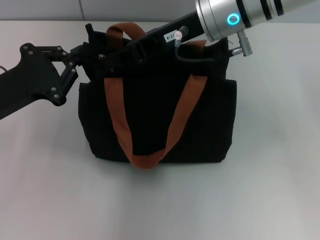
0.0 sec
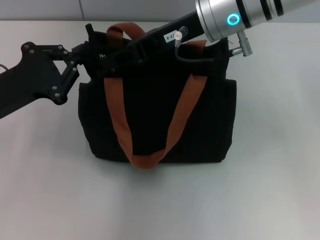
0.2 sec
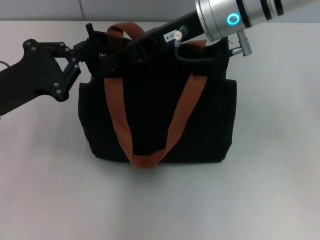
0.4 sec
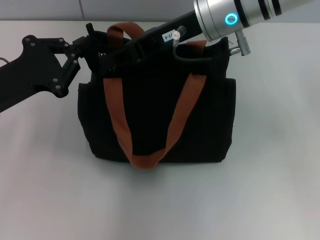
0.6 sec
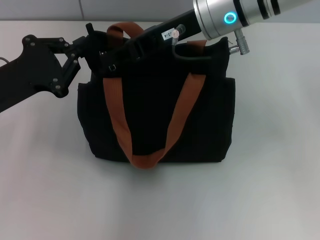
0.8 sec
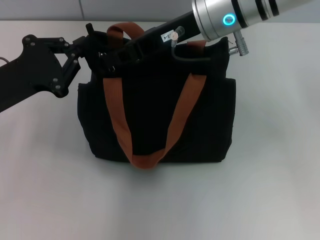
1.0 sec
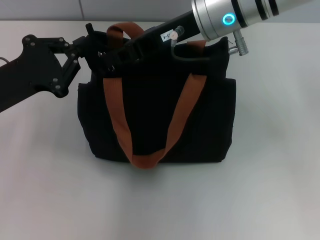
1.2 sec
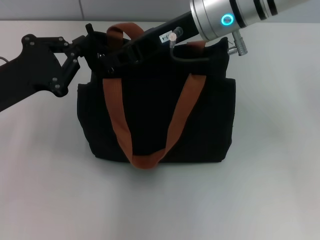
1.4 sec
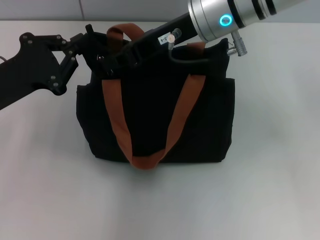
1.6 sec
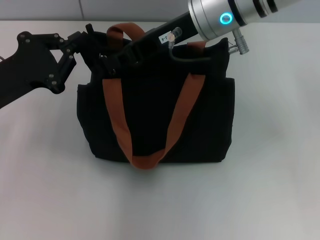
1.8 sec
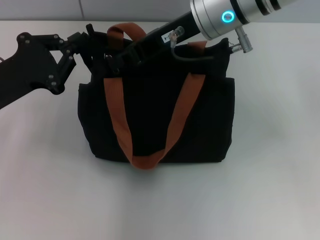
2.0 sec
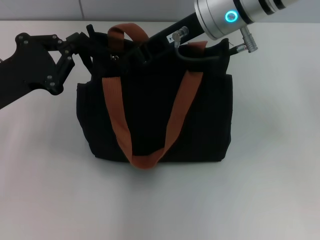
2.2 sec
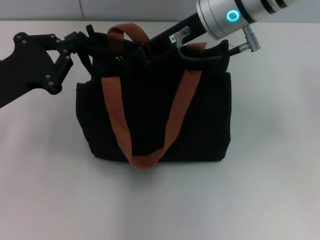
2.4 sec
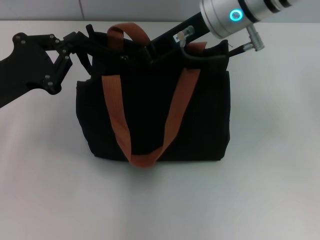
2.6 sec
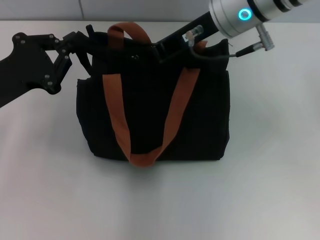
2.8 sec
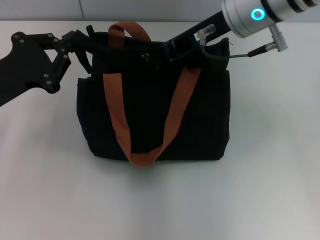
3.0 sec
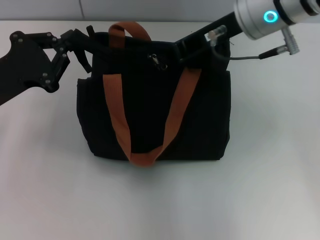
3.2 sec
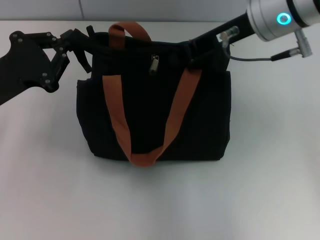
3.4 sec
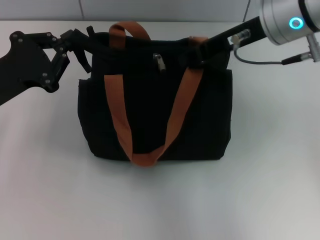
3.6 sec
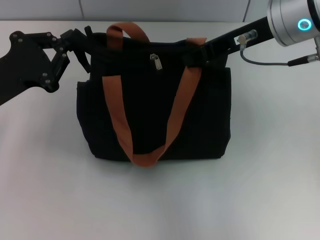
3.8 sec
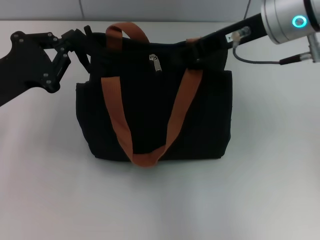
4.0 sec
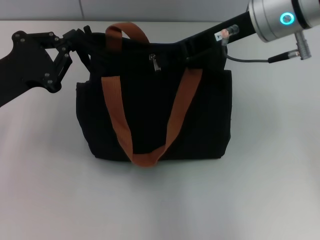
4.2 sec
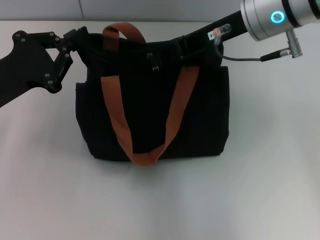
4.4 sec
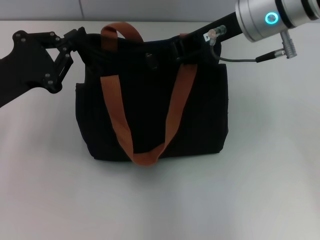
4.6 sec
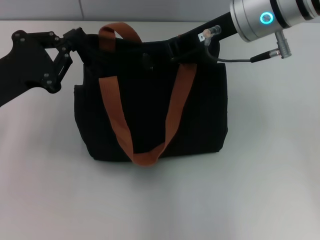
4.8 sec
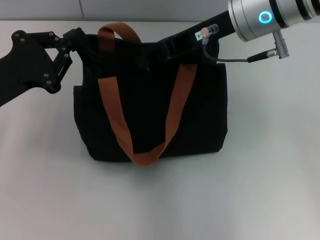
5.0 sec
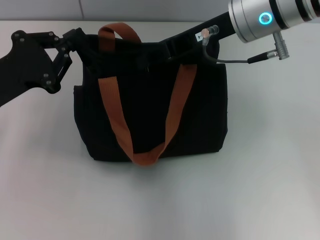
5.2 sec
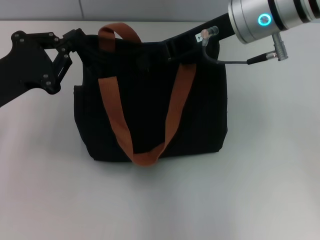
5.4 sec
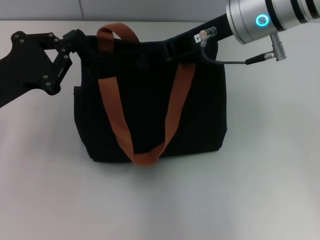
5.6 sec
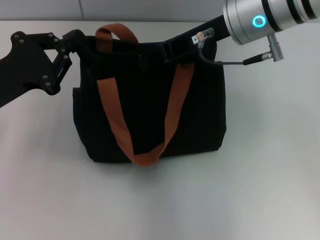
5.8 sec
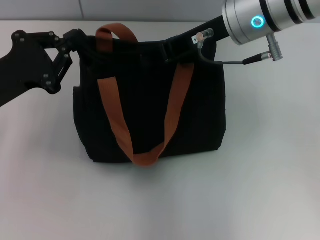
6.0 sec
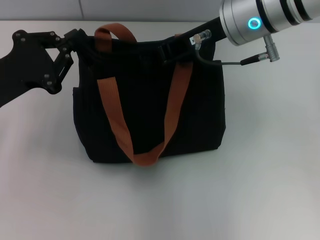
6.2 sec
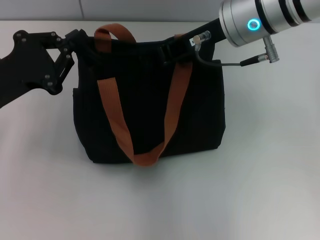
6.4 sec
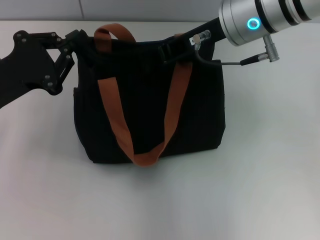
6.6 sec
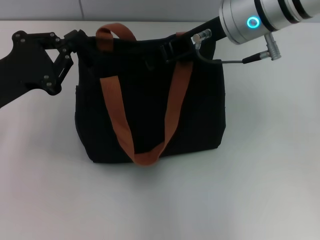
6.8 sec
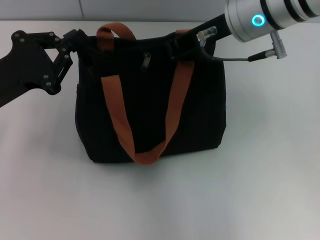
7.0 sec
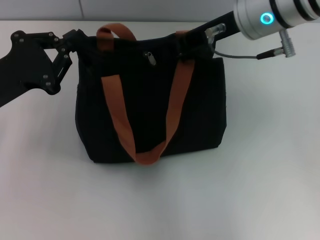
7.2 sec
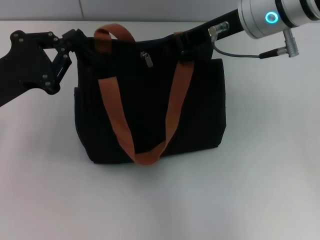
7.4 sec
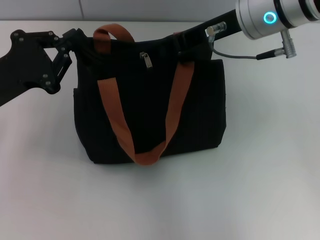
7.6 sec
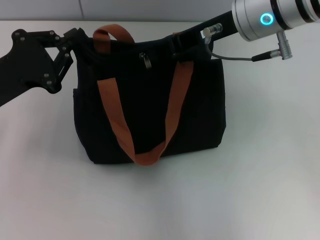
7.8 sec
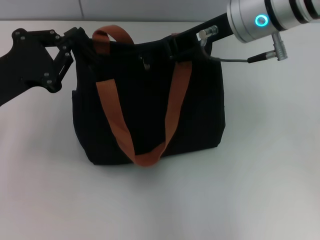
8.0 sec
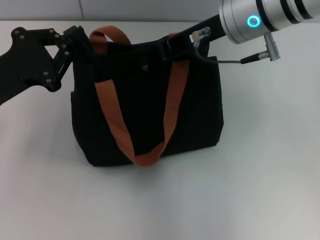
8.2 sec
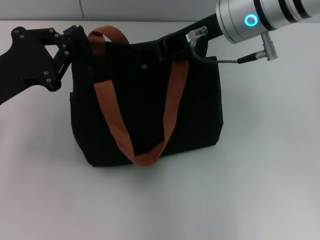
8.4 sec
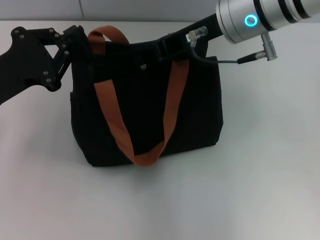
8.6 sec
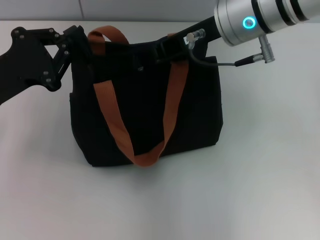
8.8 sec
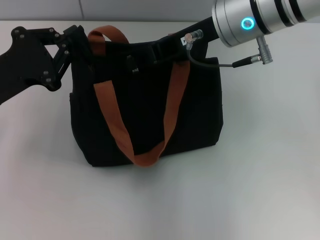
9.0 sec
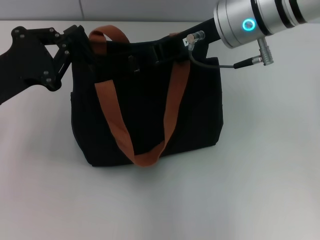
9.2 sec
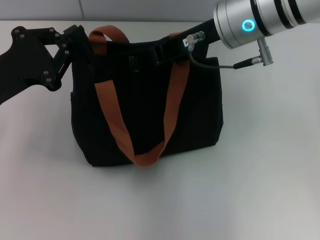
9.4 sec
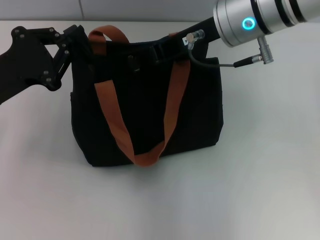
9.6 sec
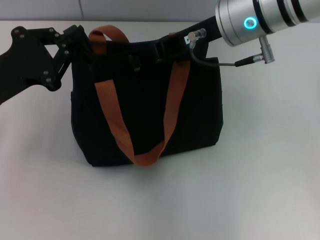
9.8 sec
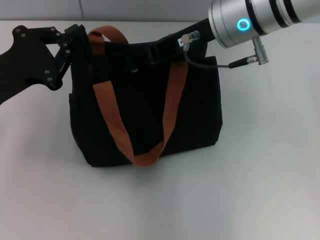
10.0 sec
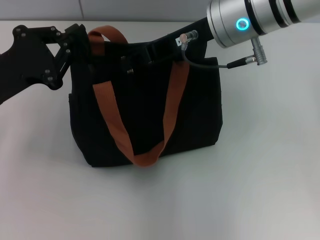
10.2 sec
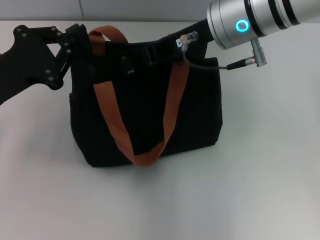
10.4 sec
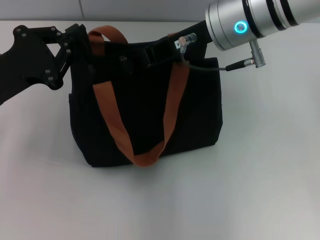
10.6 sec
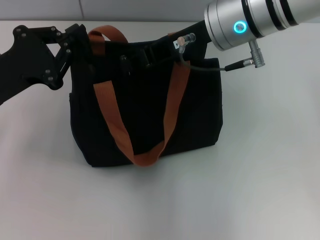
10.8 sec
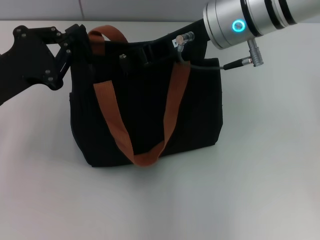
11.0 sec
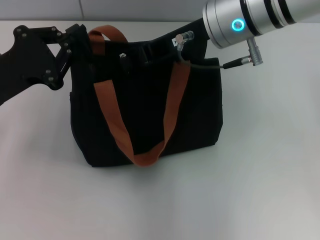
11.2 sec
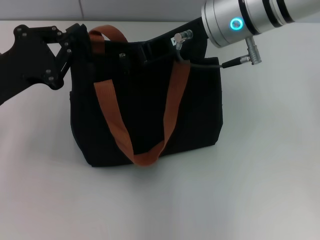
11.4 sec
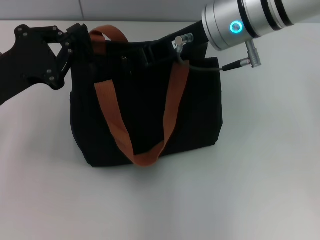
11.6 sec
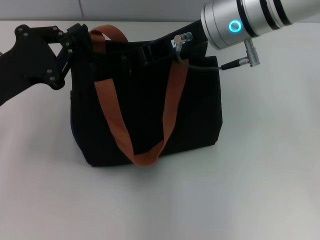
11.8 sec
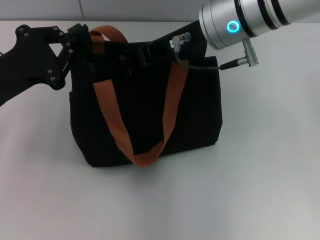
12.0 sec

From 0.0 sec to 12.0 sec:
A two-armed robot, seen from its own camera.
From 0.0 sec to 1.6 sec: The two grippers keep their place.
From 1.6 sec to 3.0 sec: The grippers move only a little.
From 3.0 sec to 9.0 sec: The grippers move only a little.
From 9.0 sec to 10.4 sec: Both grippers stay about where they are.
From 10.4 sec to 12.0 sec: The two grippers keep their place.

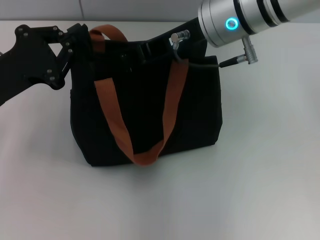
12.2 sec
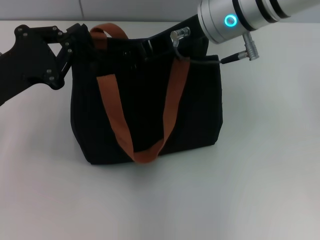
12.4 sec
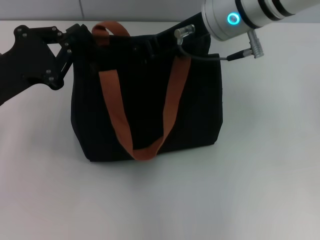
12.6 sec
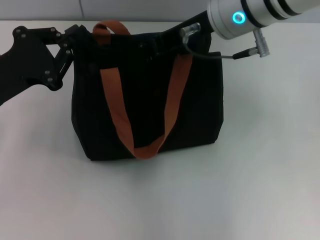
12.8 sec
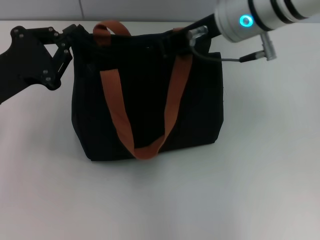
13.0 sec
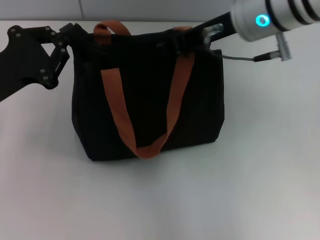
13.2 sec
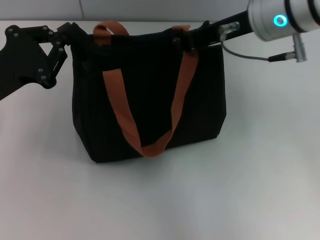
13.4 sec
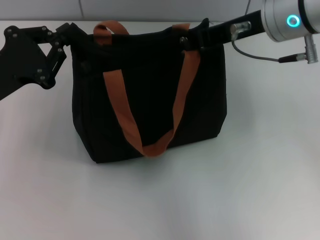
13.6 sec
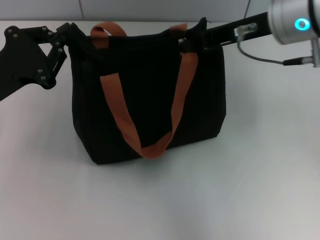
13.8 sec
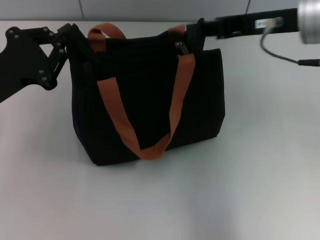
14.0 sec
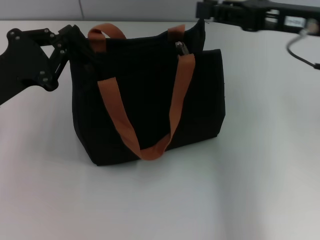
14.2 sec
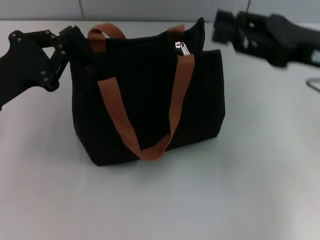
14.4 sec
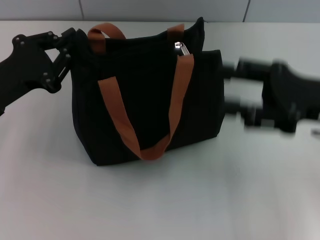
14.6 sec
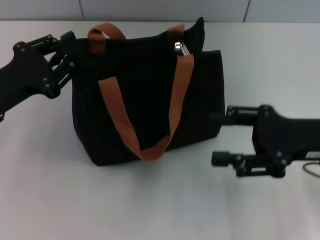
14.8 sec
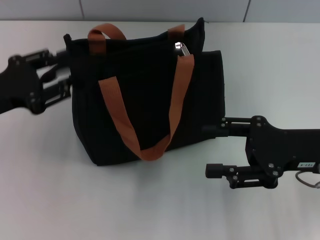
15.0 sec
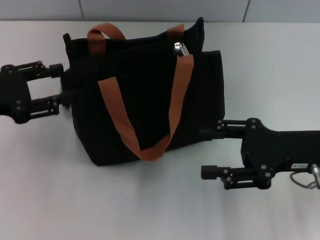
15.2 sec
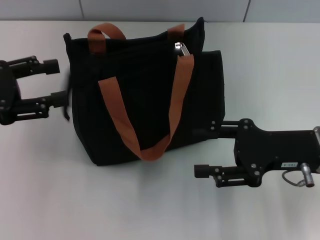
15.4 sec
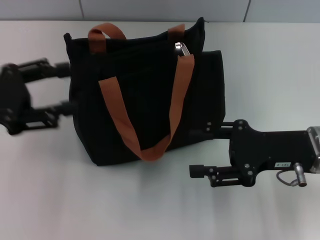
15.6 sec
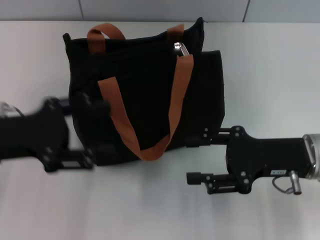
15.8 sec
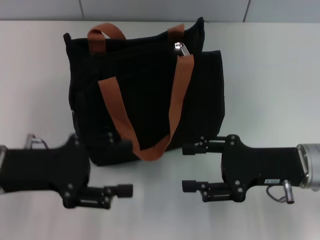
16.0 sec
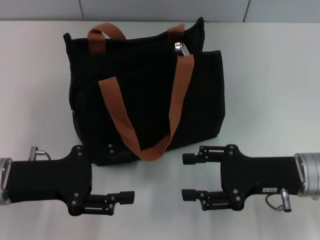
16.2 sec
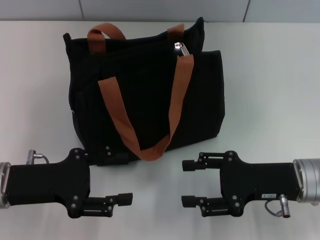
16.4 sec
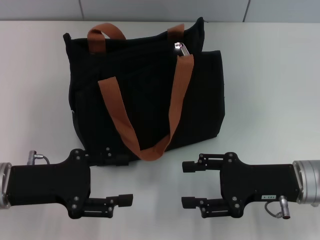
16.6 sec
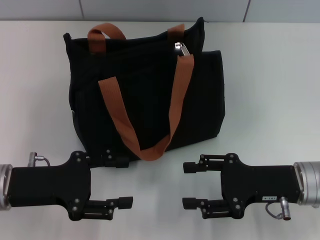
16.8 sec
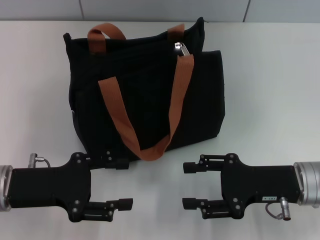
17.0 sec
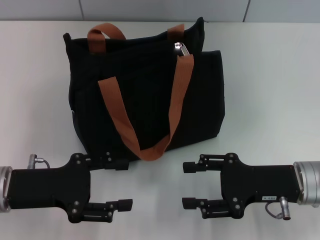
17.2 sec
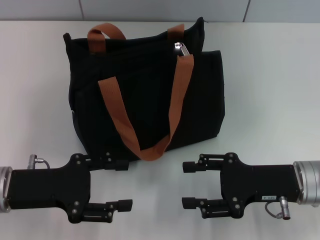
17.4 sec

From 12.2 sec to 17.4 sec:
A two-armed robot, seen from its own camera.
Step, from 14.0 sec to 15.0 sec: Grab the zipper with your left hand.
From 12.2 sec to 14.0 sec: The right gripper shifts approximately 10 cm to the right.
From 14.0 sec to 15.6 sec: The right gripper moves downward and backward, roughly 15 cm, and opens up. Meanwhile the left gripper changes place by about 5 cm, and opens up.
From 15.6 sec to 17.4 sec: The right gripper moves approximately 5 cm; the left gripper heads downward and to the right, covering approximately 10 cm.

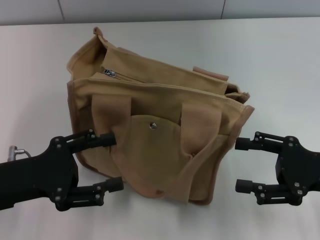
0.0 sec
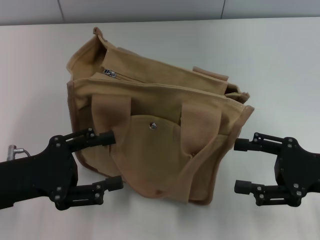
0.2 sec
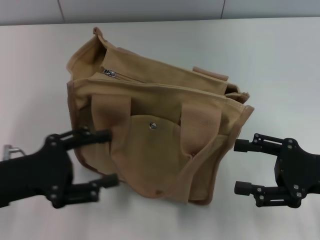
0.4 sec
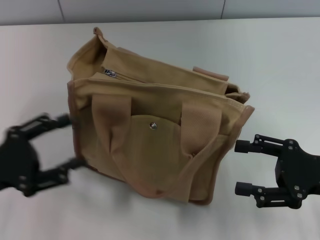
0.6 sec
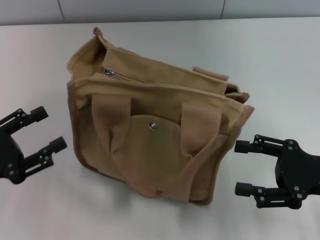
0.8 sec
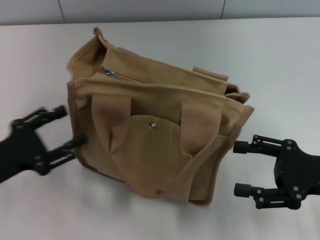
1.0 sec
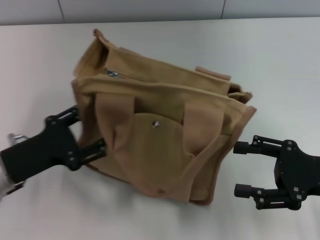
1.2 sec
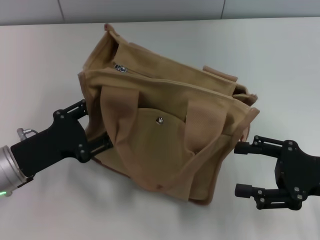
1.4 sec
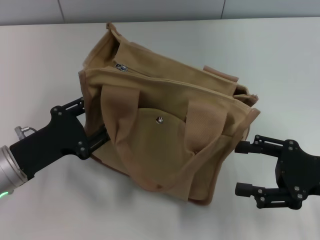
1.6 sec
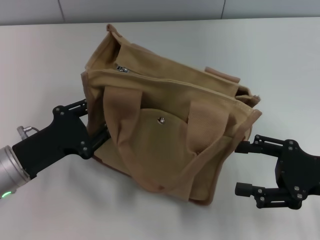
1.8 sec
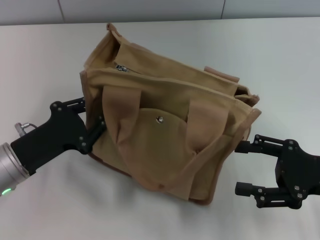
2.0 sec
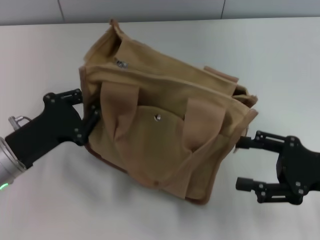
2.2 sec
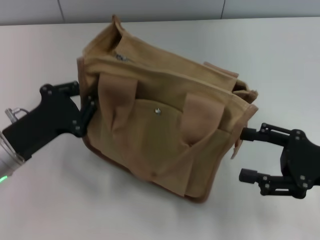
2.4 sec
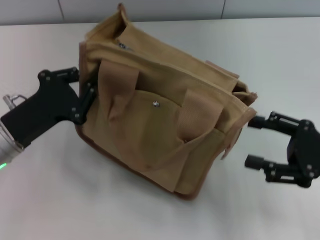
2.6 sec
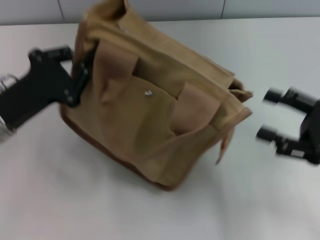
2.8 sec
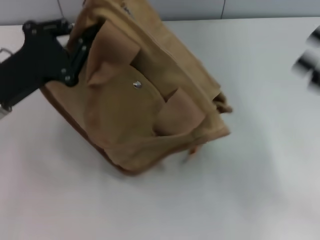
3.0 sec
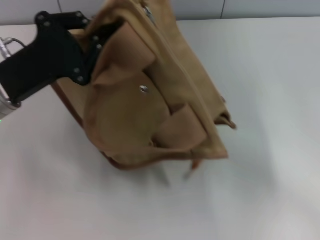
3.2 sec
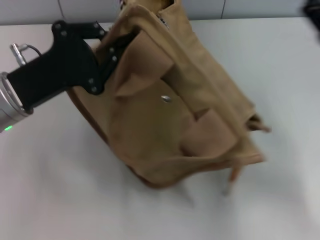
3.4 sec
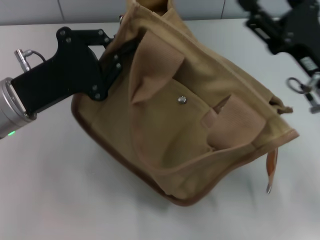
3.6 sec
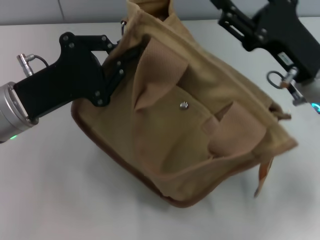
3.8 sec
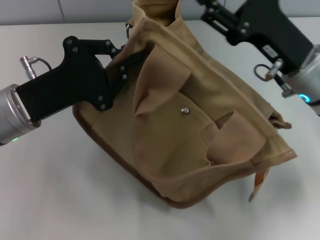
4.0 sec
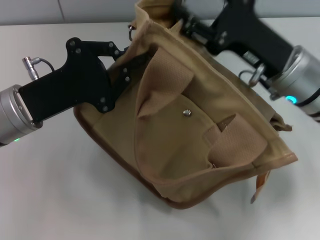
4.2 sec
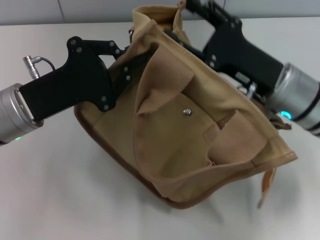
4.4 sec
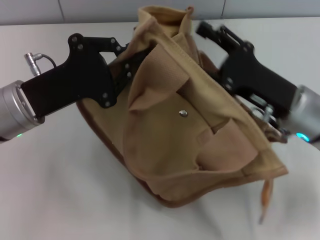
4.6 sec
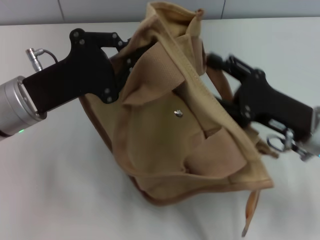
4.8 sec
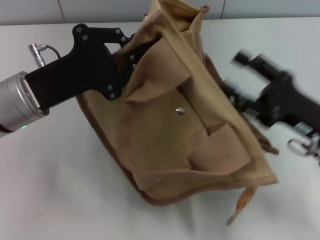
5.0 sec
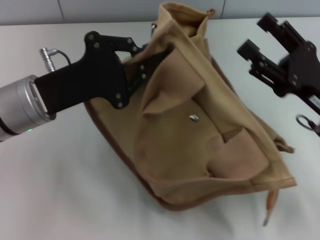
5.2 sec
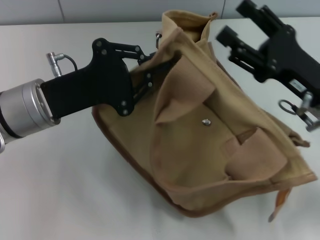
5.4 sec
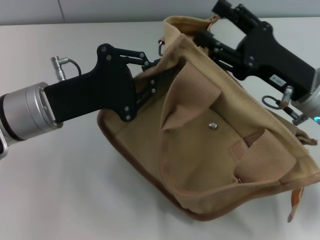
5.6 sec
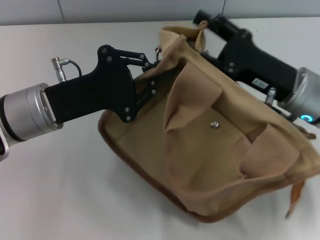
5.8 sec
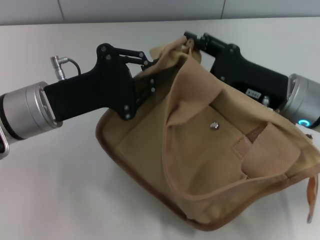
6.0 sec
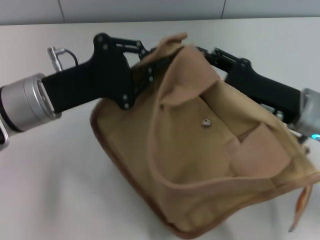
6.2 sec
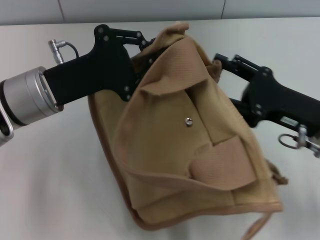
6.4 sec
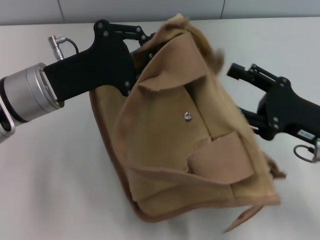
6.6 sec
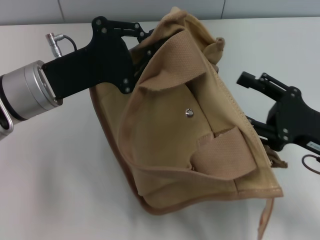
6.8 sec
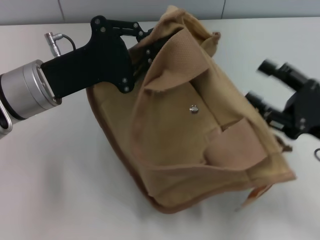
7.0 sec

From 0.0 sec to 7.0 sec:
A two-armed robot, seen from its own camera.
From 1.4 sec to 2.8 sec: The left gripper changes place by about 5 cm, and closes its fingers.
From 2.8 sec to 4.2 sec: The right gripper is displaced to the left and forward by about 15 cm.
From 5.6 sec to 7.0 sec: The right gripper shifts about 10 cm backward and to the right.
